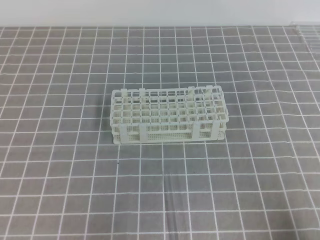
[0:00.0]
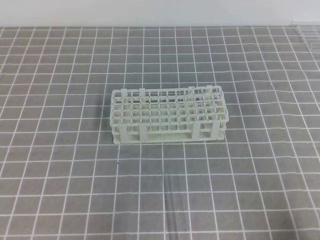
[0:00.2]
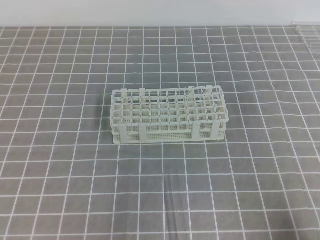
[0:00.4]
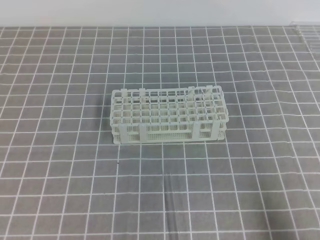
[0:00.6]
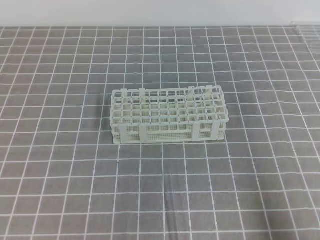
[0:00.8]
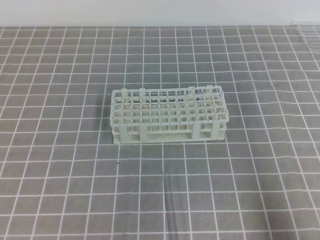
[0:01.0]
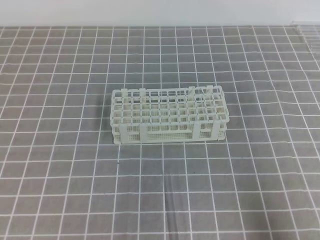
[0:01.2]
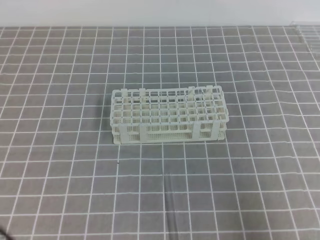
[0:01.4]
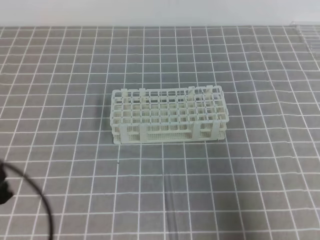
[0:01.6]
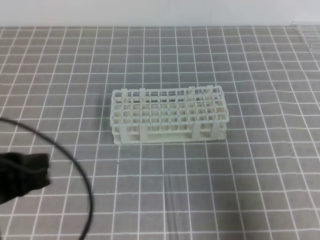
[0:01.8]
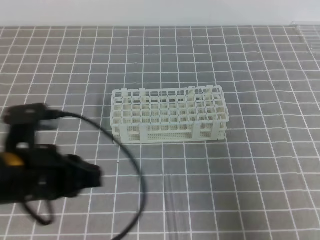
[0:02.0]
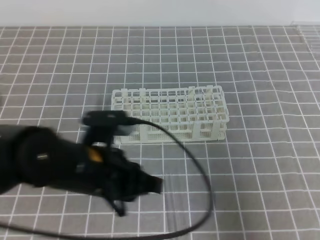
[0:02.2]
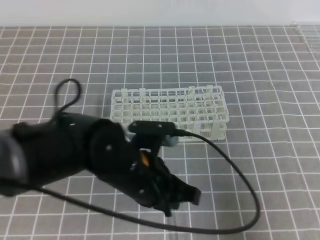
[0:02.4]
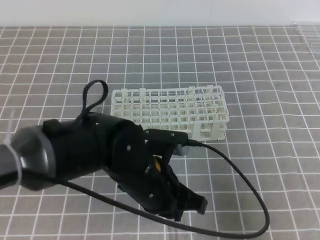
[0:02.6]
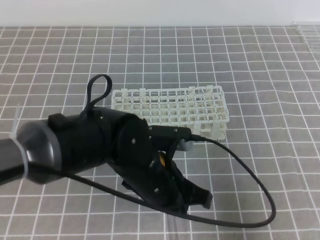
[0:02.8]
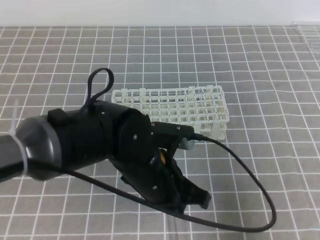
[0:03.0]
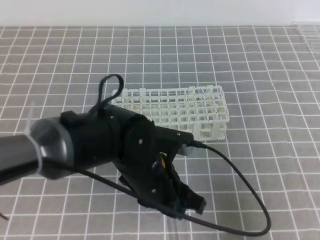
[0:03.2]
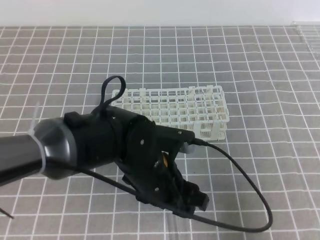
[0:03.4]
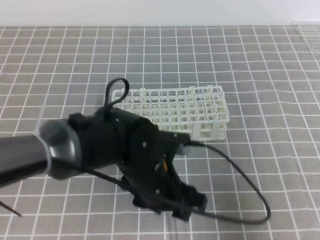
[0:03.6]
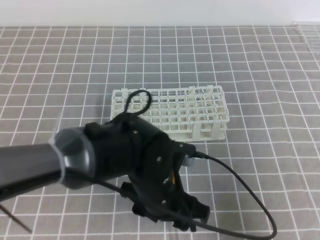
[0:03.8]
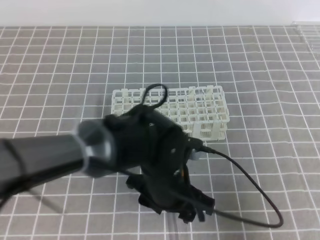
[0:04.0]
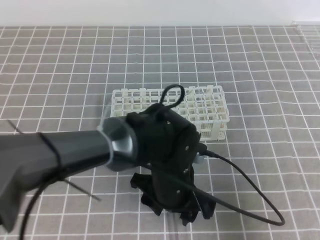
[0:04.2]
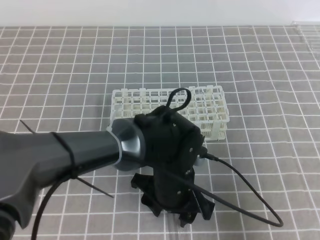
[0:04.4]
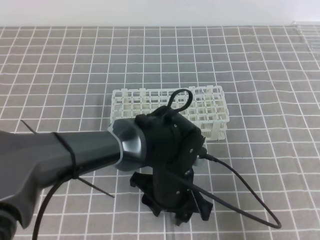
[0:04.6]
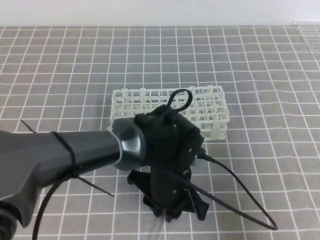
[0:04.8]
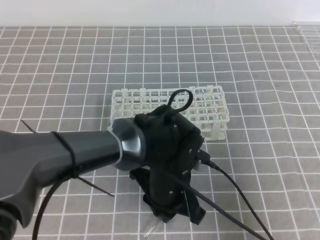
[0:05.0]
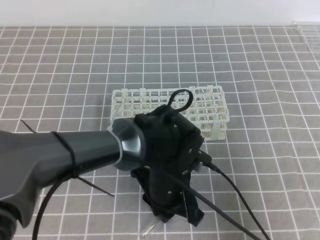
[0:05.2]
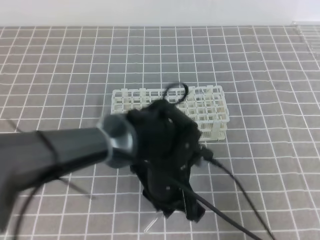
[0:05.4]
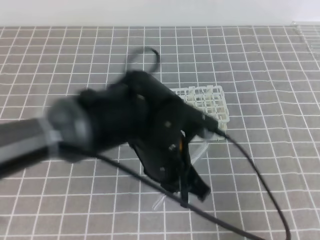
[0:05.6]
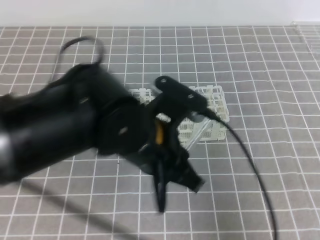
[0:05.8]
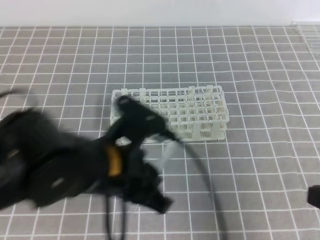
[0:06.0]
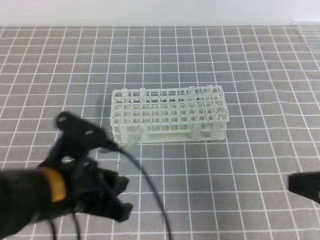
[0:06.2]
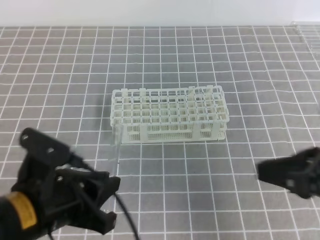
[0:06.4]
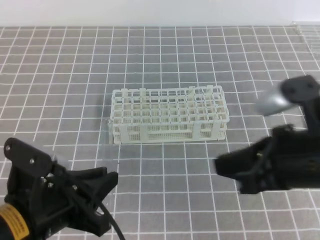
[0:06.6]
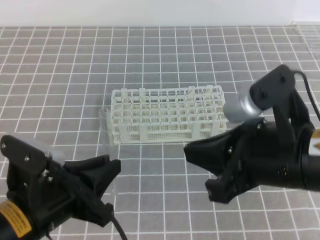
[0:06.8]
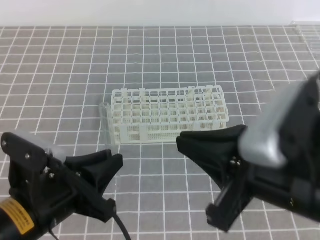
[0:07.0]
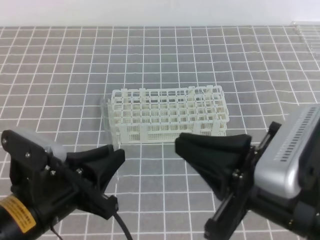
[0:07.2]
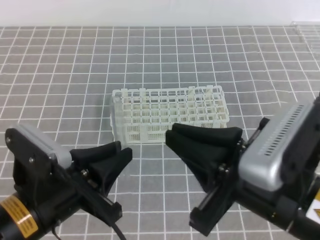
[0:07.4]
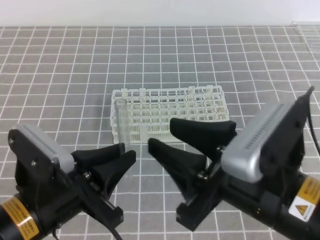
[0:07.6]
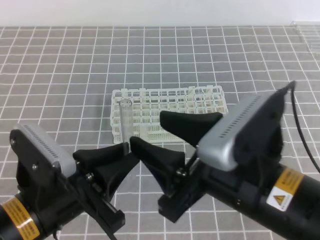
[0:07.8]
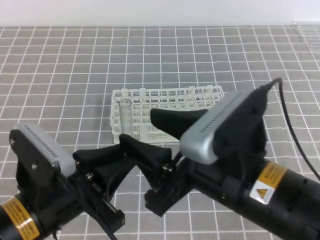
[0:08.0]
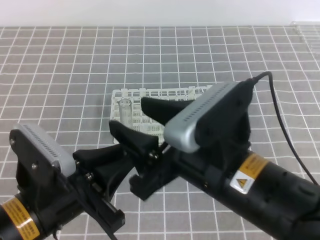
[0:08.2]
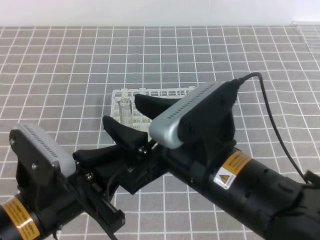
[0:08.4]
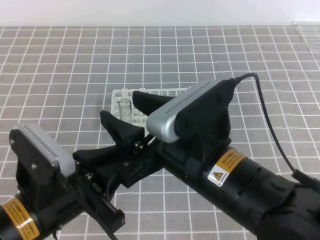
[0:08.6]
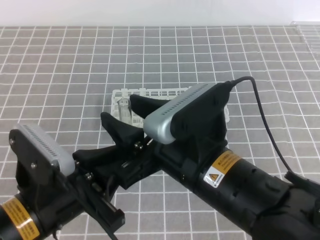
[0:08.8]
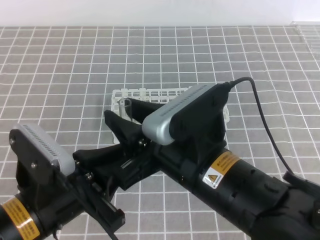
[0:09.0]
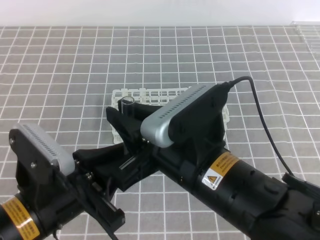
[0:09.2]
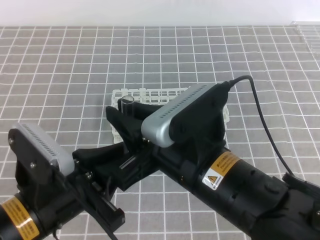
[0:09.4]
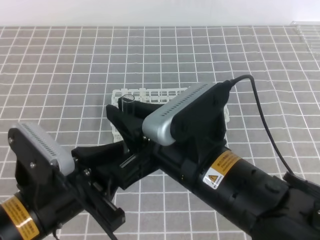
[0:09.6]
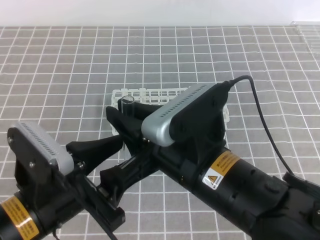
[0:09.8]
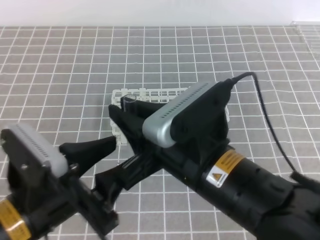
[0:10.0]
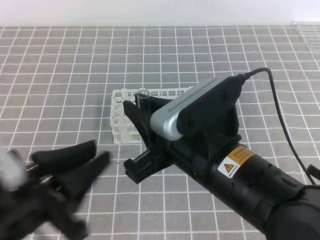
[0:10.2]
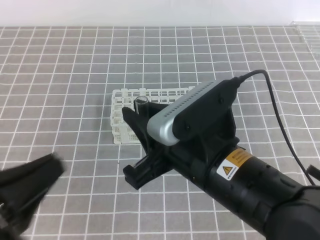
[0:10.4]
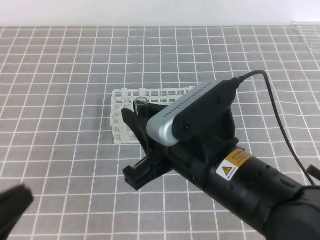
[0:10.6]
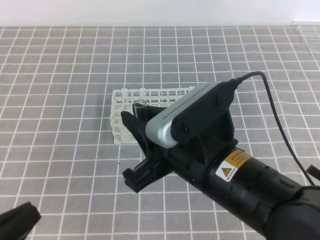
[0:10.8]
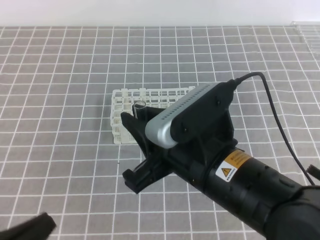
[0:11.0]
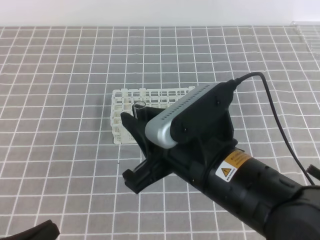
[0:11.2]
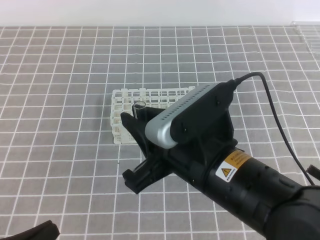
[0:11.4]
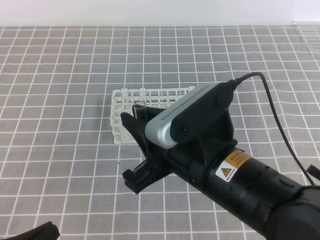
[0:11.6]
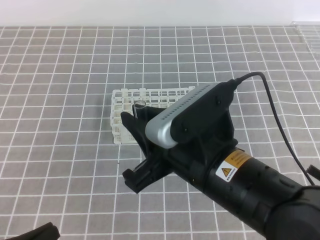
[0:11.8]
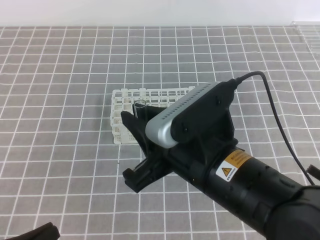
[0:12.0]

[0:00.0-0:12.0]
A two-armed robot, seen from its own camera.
0:00.0 to 0:01.6: The left gripper shifts some 10 cm upward and forward; the right gripper travels upward by some 10 cm.
0:01.6 to 0:03.0: The left gripper travels to the right and forward by some 25 cm.
0:03.0 to 0:04.4: The left gripper ends up approximately 5 cm from where it was, and opens up.
0:04.4 to 0:06.0: The left gripper goes approximately 15 cm upward and to the left, and closes its fingers.
0:06.0 to 0:07.6: The right gripper is displaced to the left by about 15 cm, and opens its fingers; the left gripper heads to the left, covering approximately 10 cm.
0:07.6 to 0:09.0: The right gripper shifts approximately 5 cm to the left, and opens and closes again.
0:09.0 to 0:10.4: The left gripper is displaced to the left by roughly 5 cm, and opens, then closes once more. Meanwhile the right gripper closes up.
0:10.4 to 0:12.0: The left gripper is displaced downward by some 10 cm.

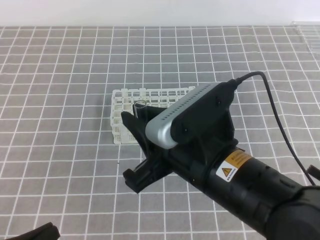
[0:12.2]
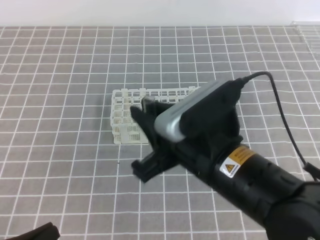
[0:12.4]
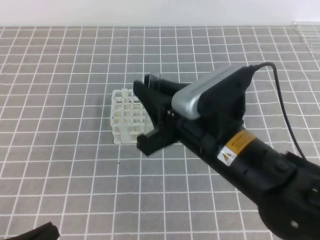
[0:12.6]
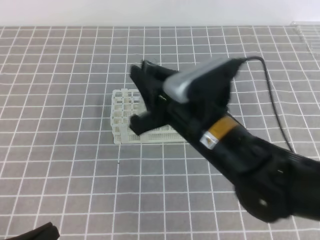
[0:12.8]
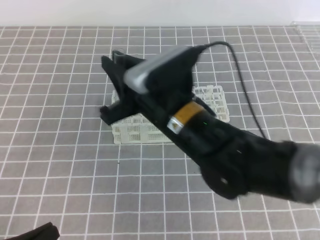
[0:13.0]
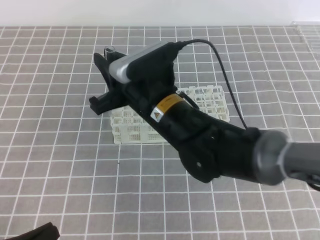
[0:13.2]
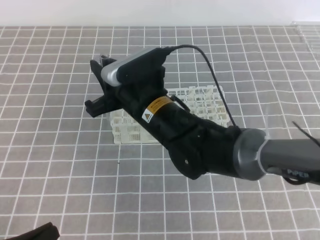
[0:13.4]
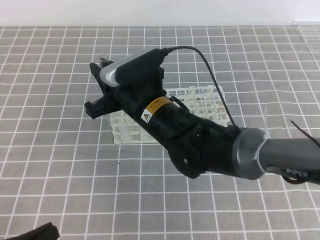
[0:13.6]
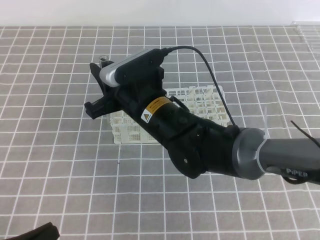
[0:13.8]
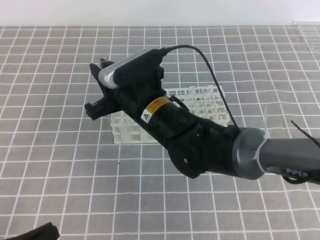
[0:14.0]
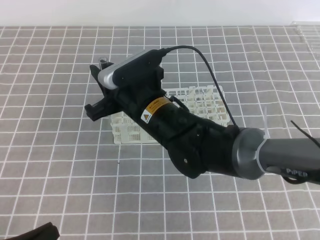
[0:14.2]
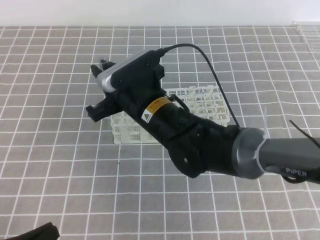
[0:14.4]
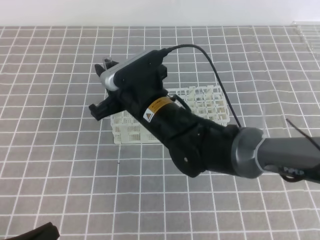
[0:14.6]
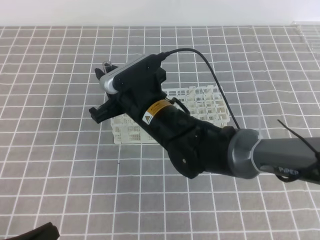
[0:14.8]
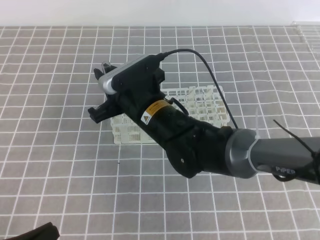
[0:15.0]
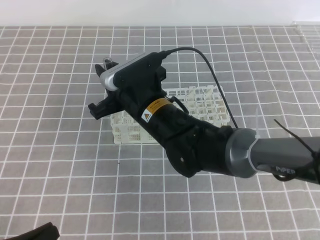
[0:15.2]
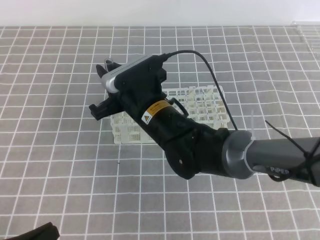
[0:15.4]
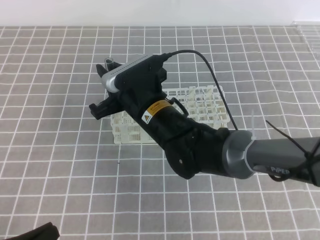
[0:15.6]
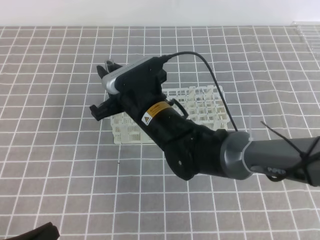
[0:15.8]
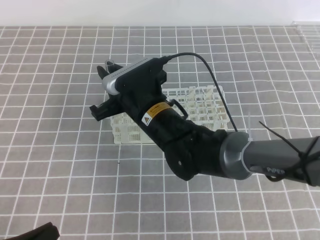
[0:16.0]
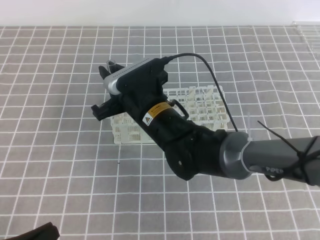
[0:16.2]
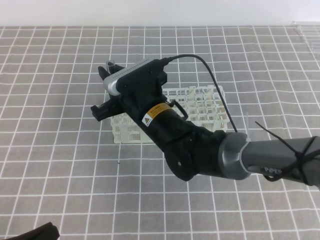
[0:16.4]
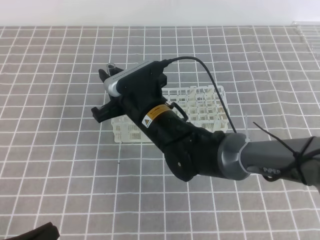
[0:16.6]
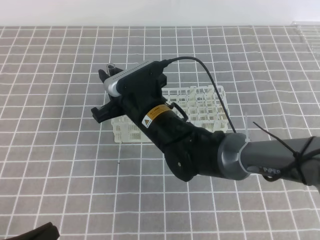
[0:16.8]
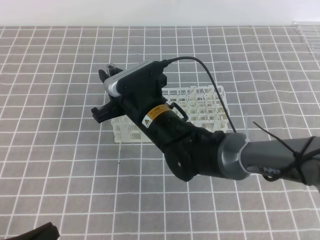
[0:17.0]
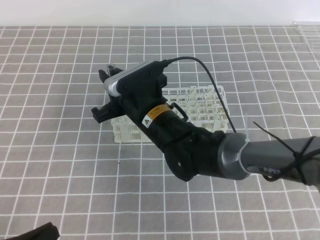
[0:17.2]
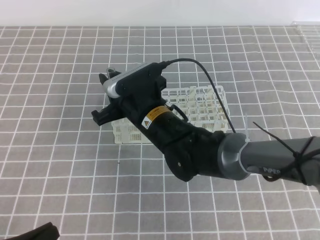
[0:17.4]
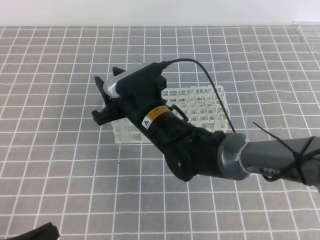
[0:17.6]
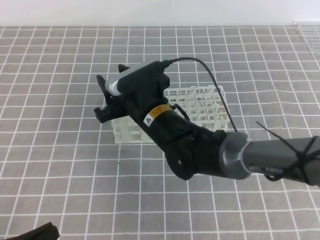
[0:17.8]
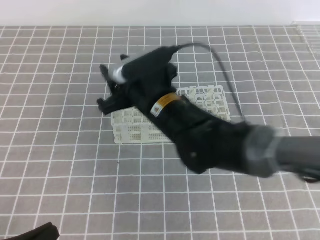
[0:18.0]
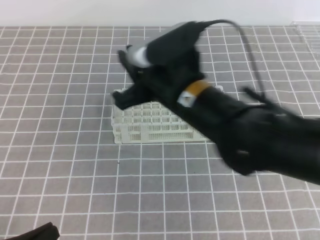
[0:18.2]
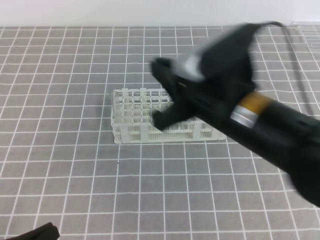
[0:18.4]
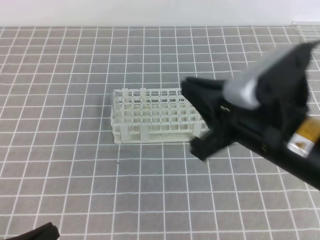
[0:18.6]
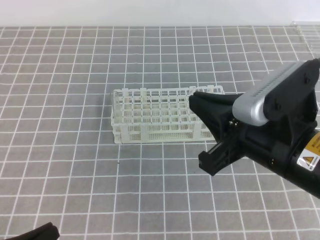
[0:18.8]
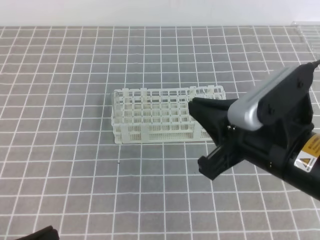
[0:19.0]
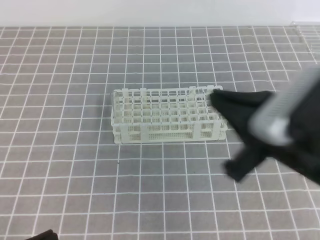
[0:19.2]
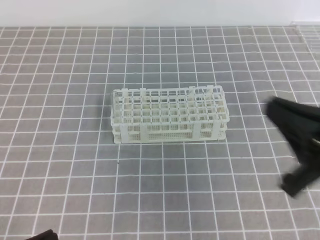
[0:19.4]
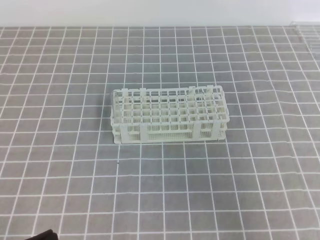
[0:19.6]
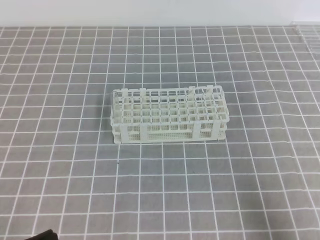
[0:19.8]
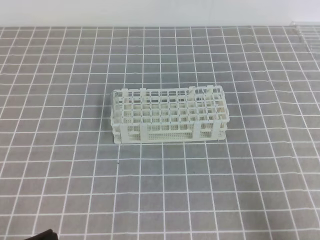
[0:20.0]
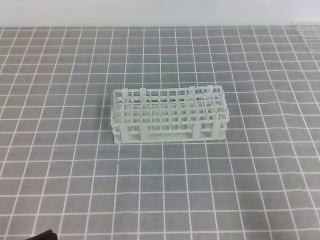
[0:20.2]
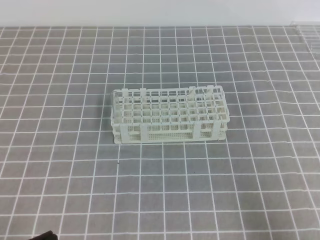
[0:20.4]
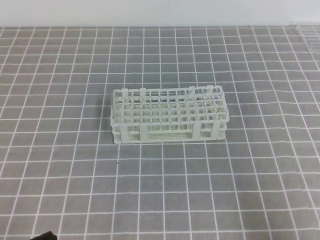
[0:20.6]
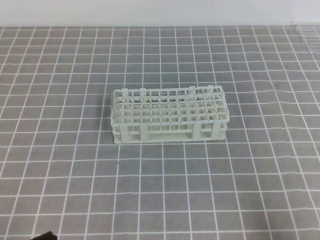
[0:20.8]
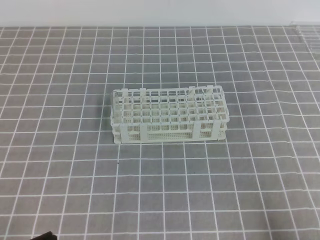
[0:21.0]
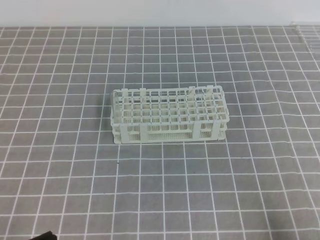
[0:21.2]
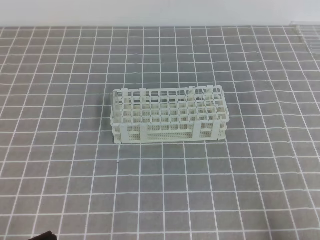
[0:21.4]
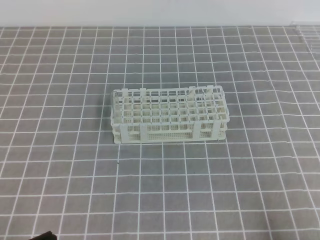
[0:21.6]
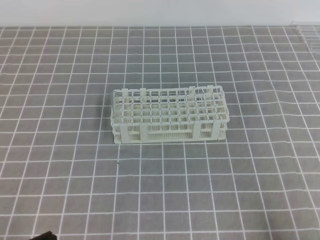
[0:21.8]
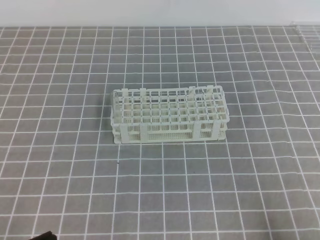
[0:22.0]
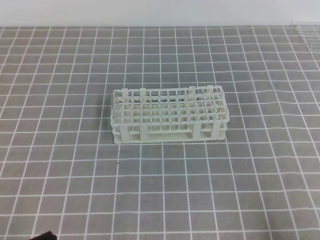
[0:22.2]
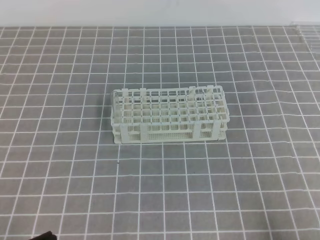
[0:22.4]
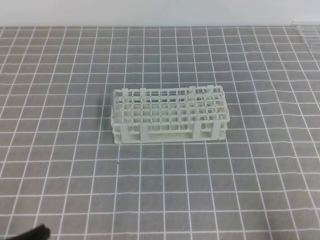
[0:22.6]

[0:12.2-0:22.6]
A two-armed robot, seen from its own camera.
0:12.2 to 0:13.6: The right gripper goes approximately 15 cm forward and to the left.
0:13.6 to 0:16.6: The grippers move only a little.
0:16.6 to 0:18.2: The right gripper travels upward, to the right and backward by some 10 cm, and opens and closes again.
0:18.2 to 0:19.6: The right gripper moves to the right and backward, some 30 cm, and closes.
0:19.6 to 0:21.2: The right gripper shifts approximately 10 cm downward and backward.
